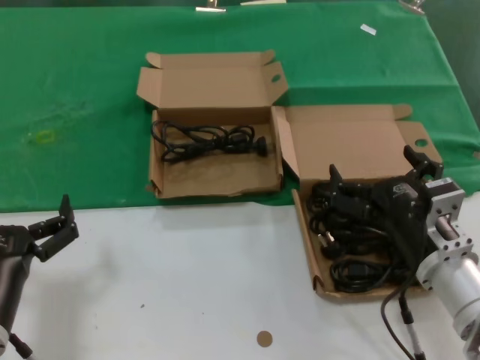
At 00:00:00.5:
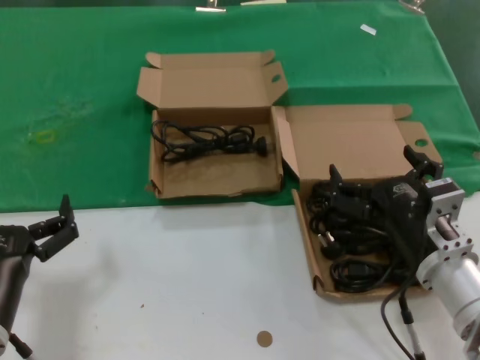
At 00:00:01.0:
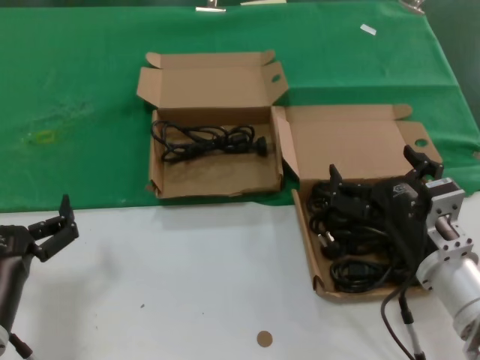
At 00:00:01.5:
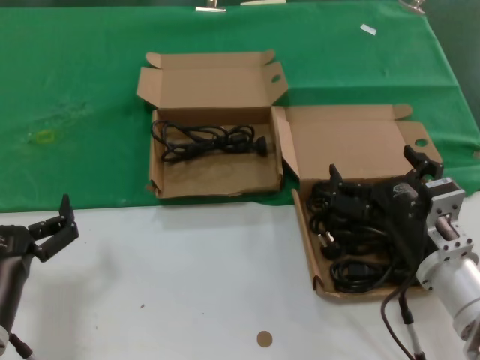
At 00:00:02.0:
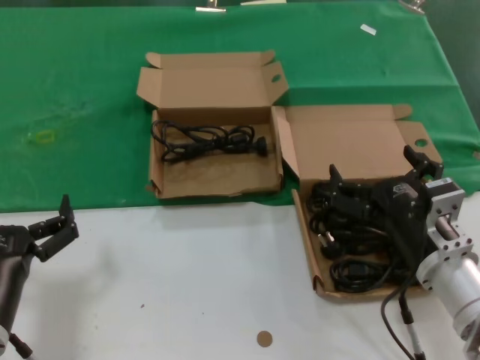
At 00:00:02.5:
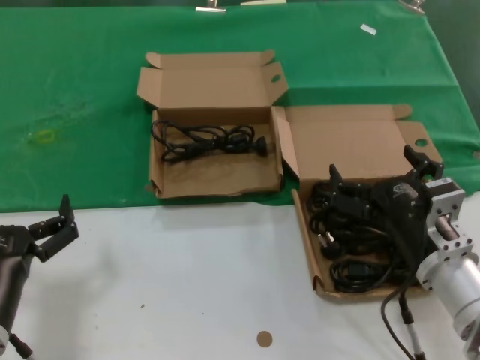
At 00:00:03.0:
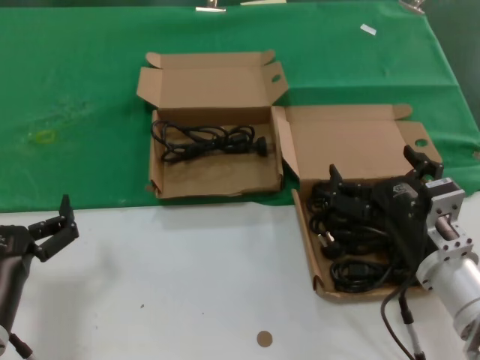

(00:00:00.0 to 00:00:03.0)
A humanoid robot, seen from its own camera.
Task of the whole recording: take the parts from the box containing them and put them into an empty box.
00:00:00.0 - 00:00:03.0: Both hands stay about where they are.
